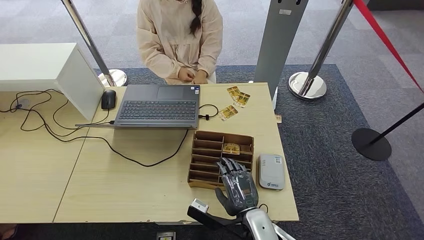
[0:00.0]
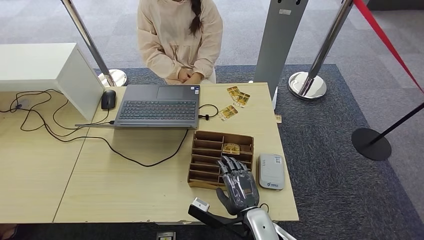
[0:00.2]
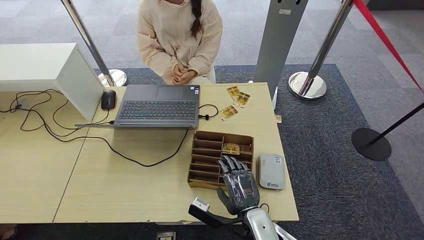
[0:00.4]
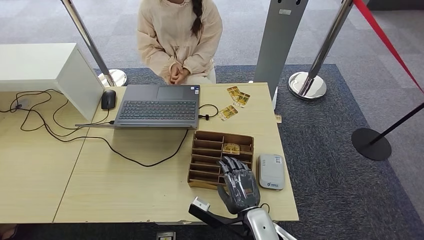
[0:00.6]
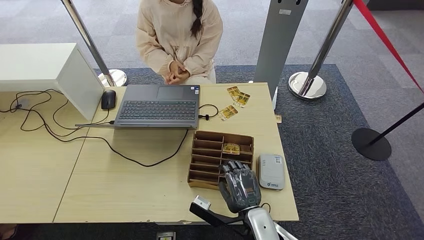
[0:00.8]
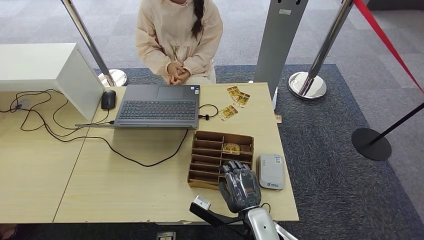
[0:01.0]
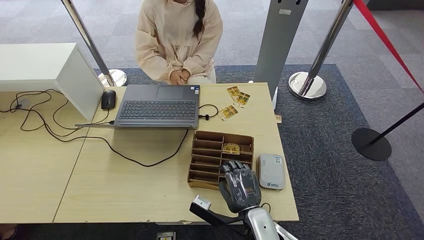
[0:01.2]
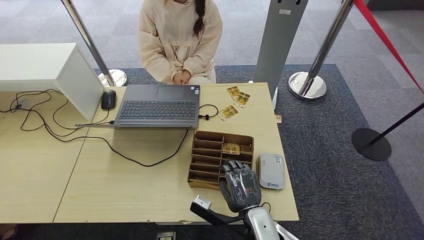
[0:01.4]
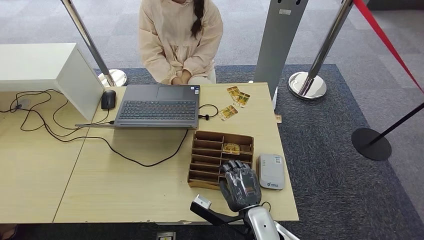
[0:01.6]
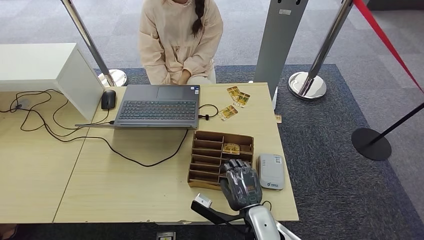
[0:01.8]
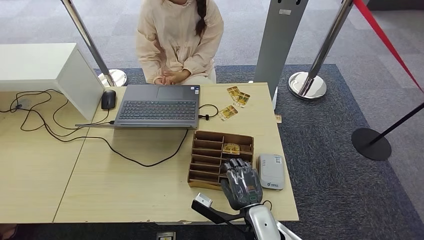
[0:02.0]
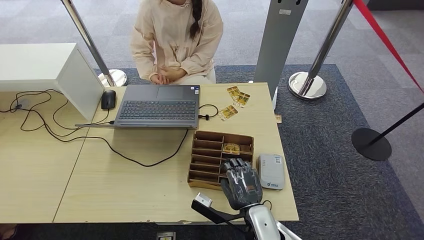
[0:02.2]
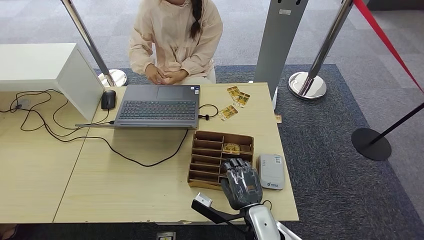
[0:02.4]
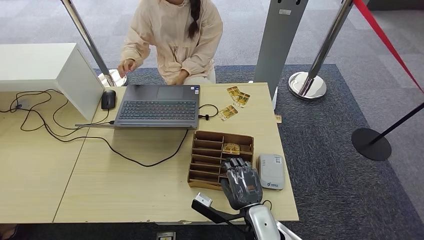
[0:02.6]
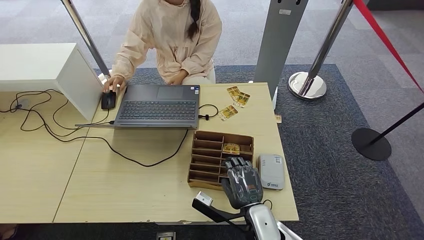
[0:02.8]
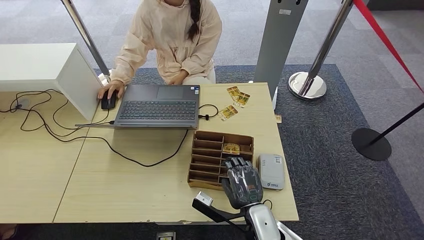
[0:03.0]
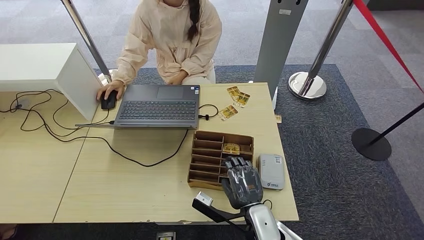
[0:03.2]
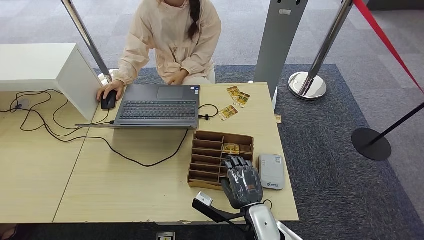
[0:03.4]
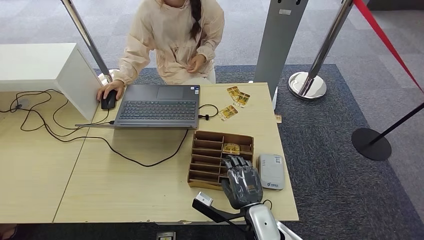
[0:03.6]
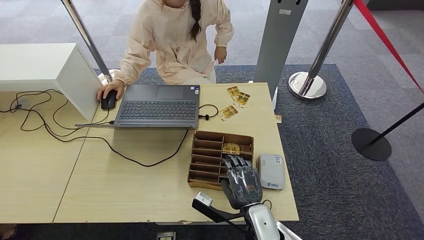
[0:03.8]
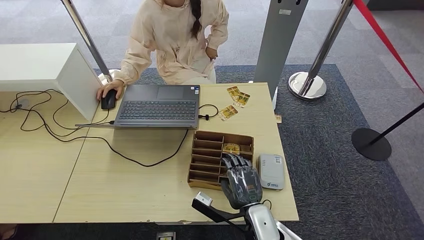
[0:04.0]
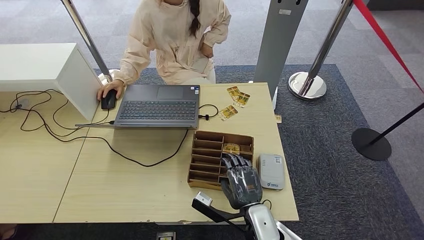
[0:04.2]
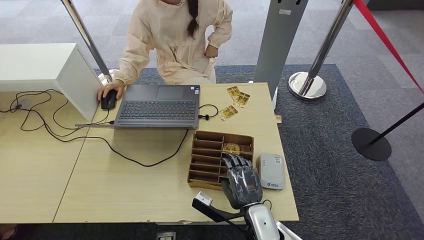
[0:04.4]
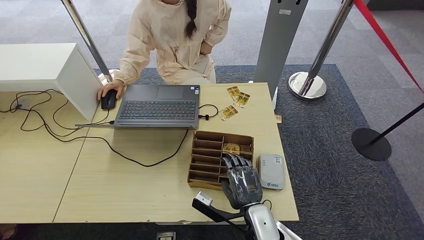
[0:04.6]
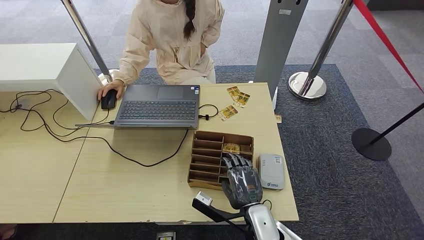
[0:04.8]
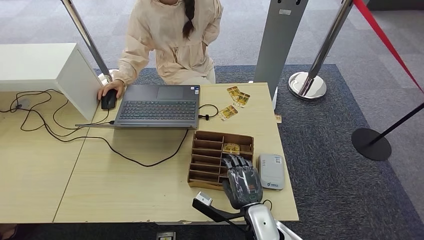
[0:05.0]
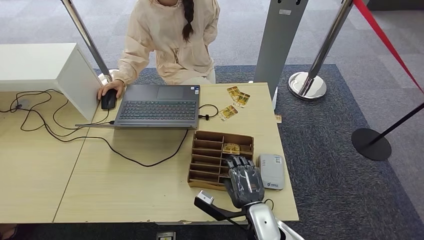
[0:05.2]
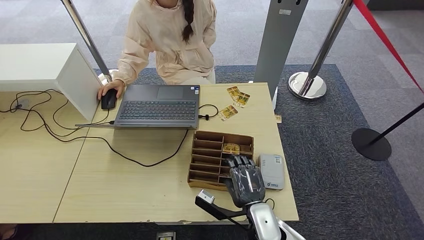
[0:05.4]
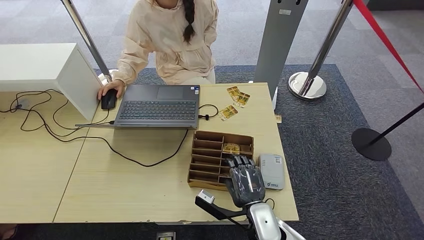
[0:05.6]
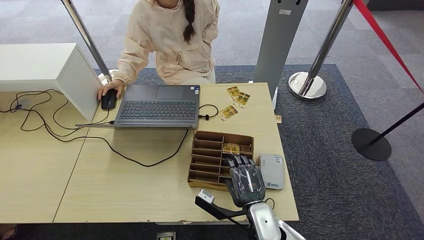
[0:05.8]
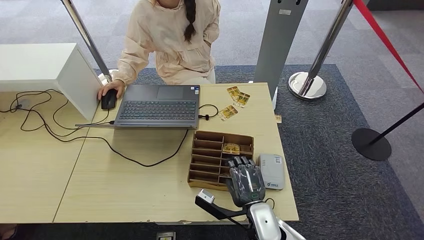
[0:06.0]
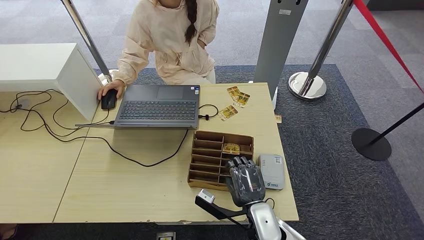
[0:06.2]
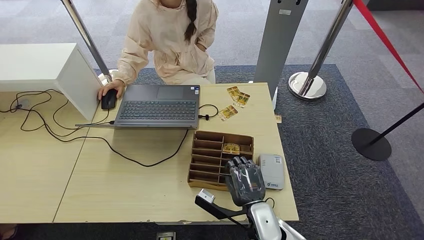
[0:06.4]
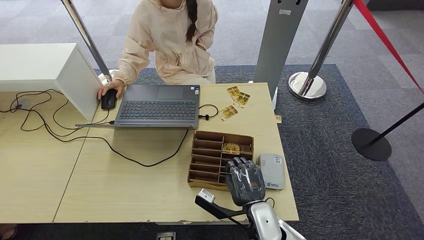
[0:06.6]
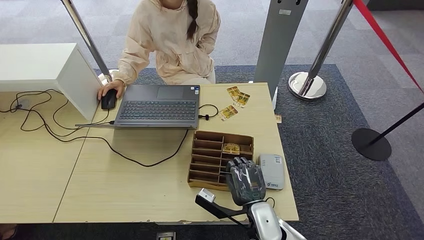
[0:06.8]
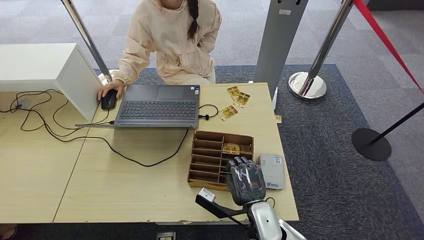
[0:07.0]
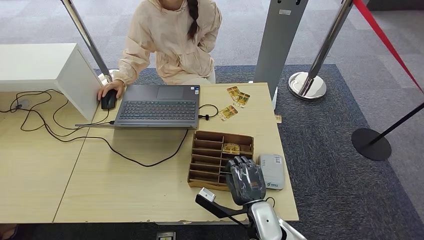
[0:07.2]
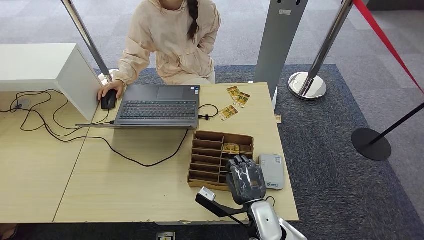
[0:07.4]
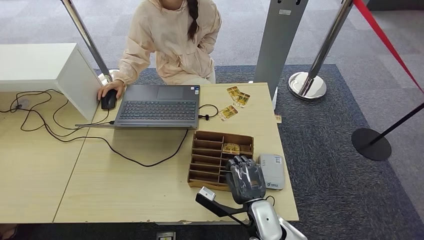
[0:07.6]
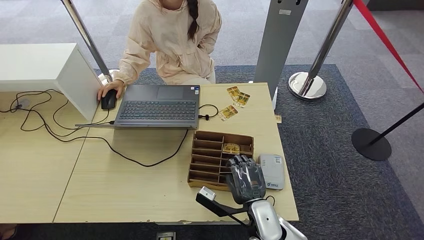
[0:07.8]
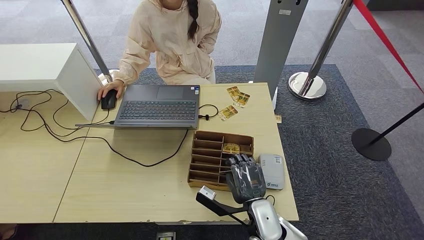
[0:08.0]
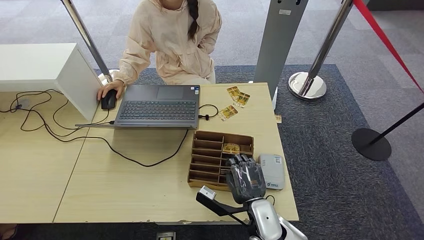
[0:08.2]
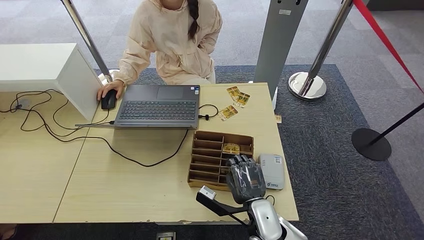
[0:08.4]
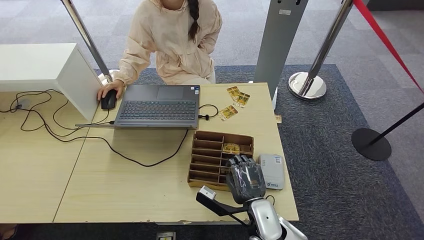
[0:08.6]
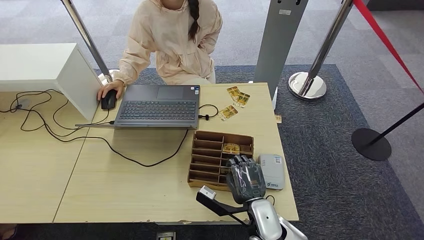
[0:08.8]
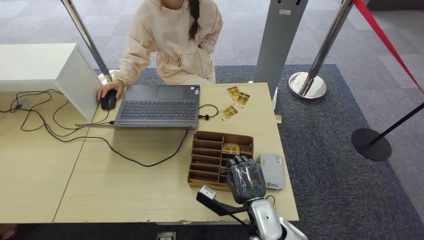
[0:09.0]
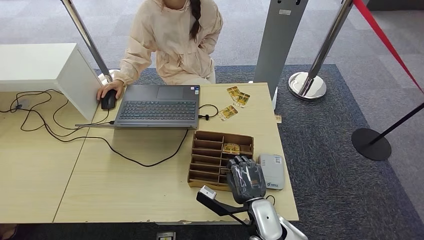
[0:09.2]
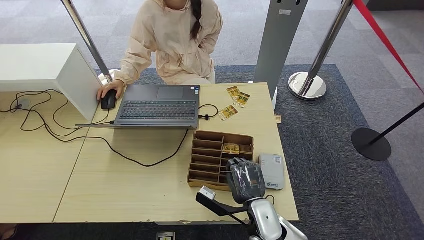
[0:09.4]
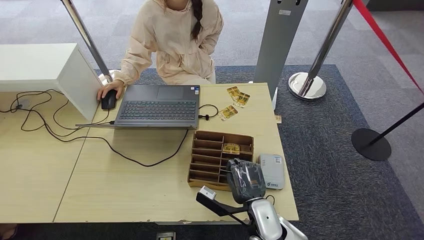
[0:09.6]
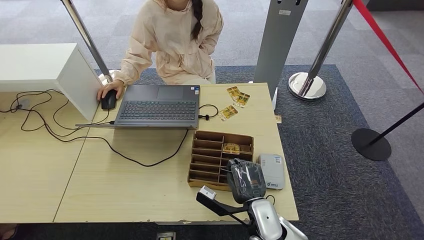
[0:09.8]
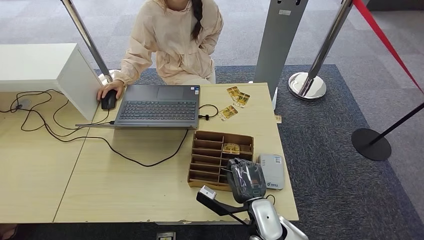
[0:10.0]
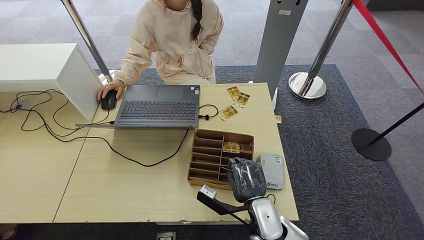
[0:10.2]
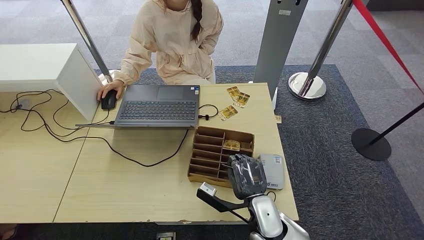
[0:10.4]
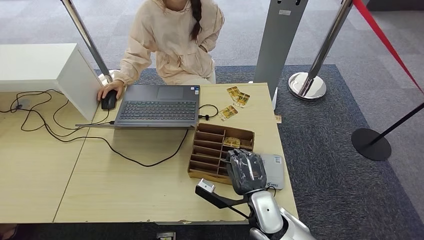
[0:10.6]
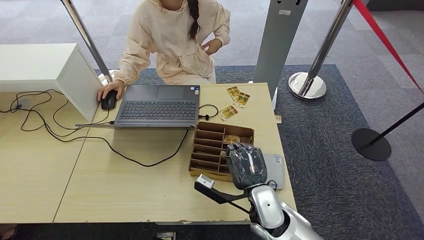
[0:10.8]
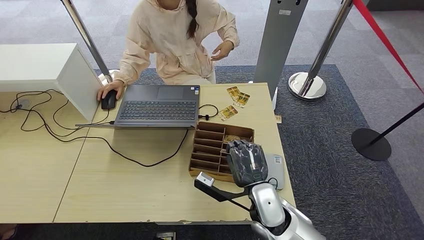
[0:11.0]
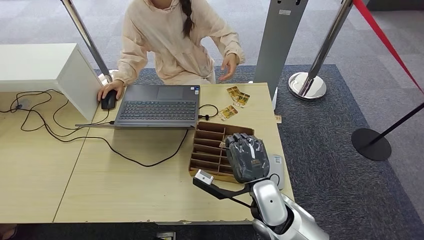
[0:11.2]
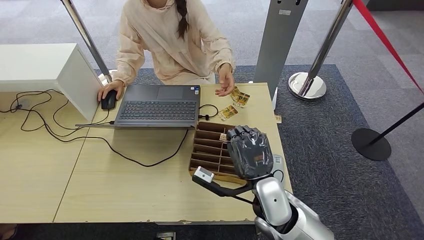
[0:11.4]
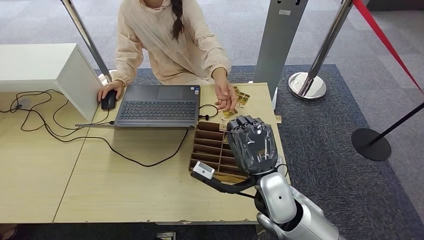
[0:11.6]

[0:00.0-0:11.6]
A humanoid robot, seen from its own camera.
Step, 0:00.0 to 0:11.0: Pick up the room key from the key card box.
0:00.0 to 0:01.4: The two hands keep their place.
0:01.4 to 0:04.4: Both hands stay put.
0:04.4 to 0:07.2: Both hands stay put.
0:07.2 to 0:10.2: Both hands stay about where they are.
0:10.2 to 0:11.6: The right hand goes approximately 10 cm upward.

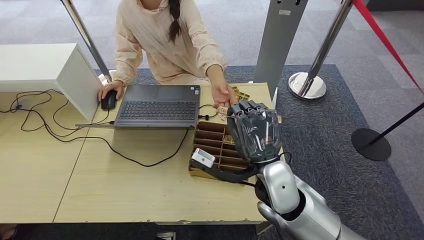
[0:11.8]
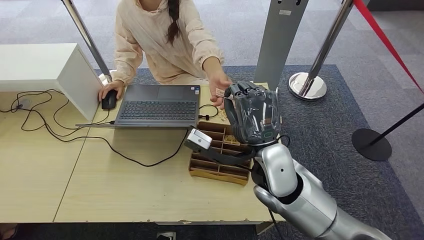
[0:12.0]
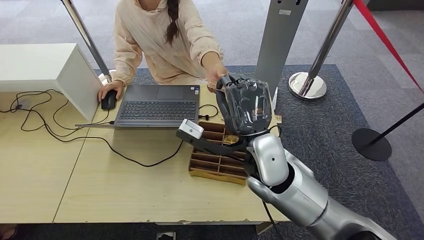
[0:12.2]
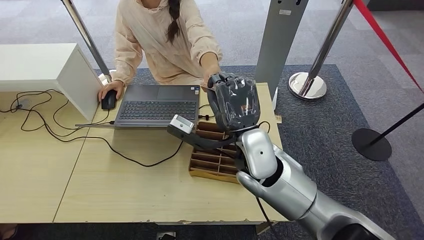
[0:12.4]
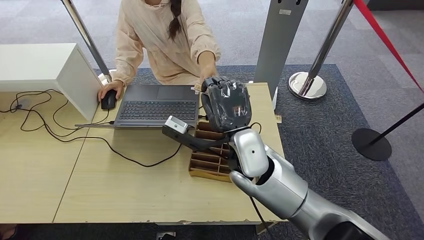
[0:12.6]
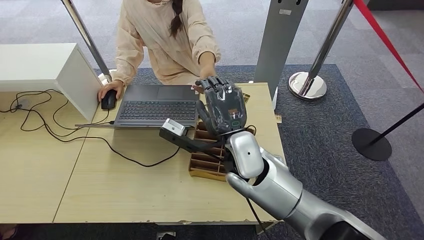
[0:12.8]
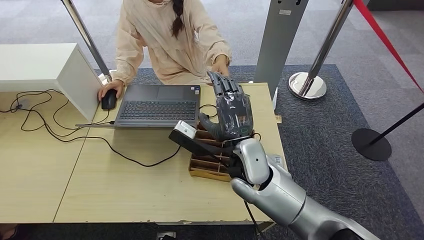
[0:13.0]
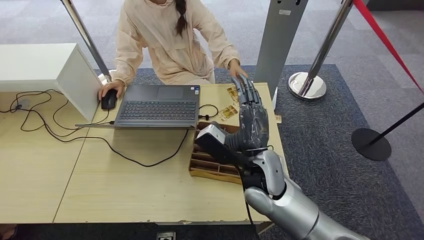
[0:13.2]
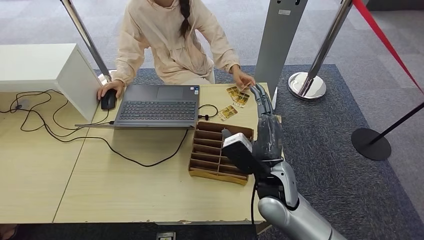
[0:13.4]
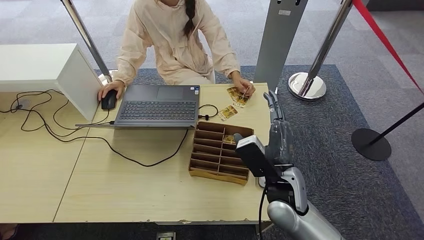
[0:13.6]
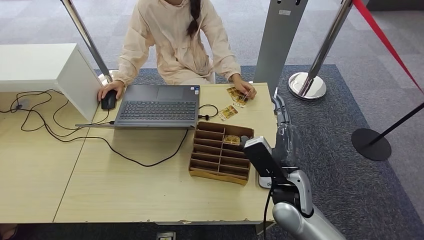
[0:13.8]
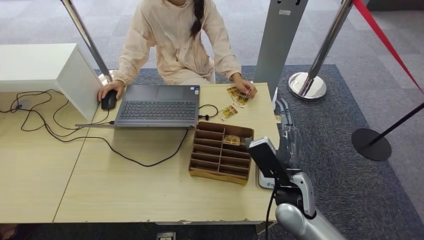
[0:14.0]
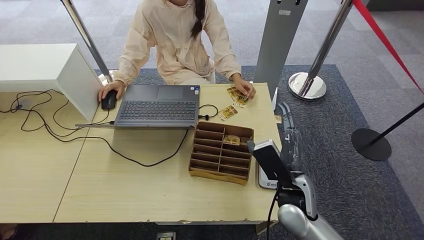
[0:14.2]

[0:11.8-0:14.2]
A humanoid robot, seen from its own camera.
Step, 0:11.8 to 0:14.2: Hand the room key to the person.
0:11.8 to 0:13.0: The right hand heads forward, covering approximately 5 cm.
0:13.0 to 0:14.2: The right hand moves to the right, downward and backward, some 15 cm.

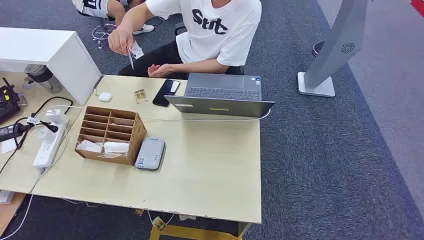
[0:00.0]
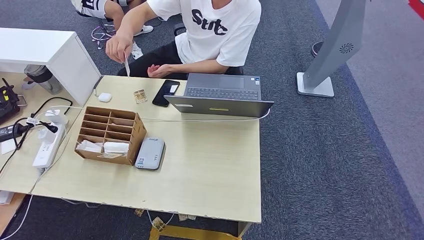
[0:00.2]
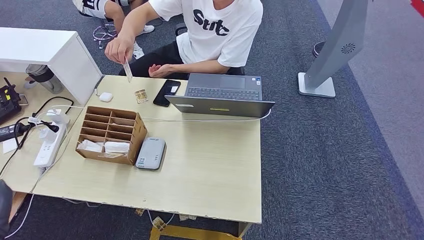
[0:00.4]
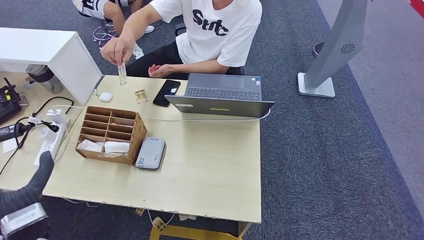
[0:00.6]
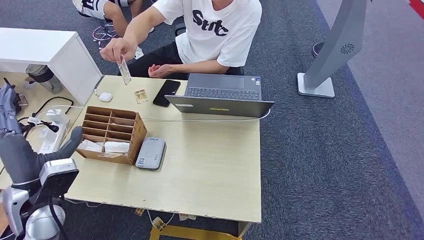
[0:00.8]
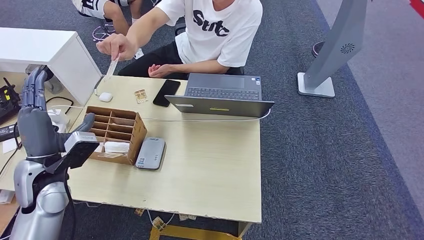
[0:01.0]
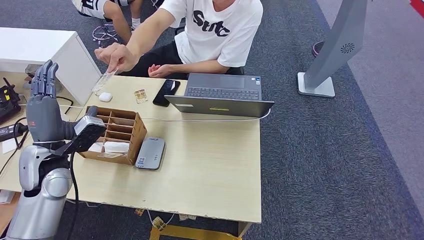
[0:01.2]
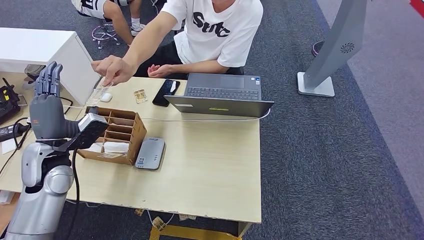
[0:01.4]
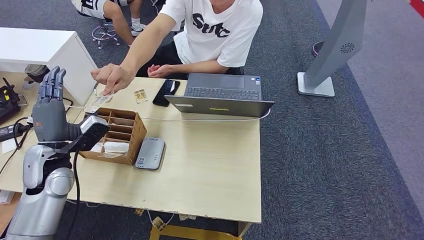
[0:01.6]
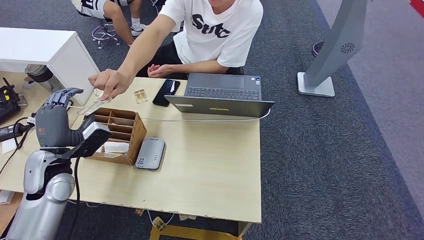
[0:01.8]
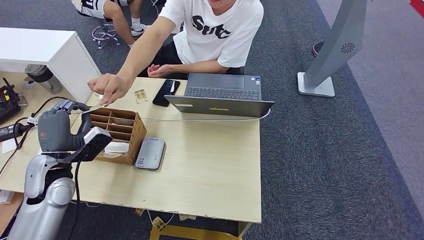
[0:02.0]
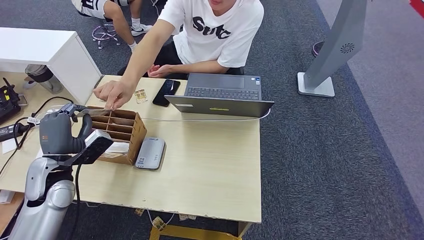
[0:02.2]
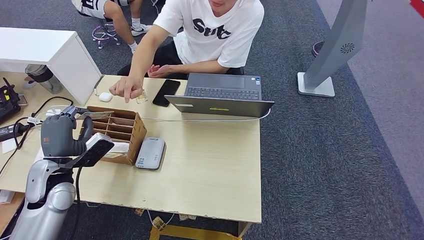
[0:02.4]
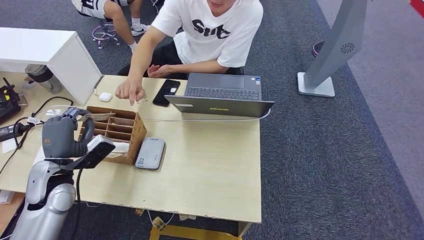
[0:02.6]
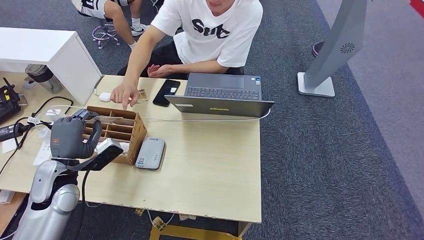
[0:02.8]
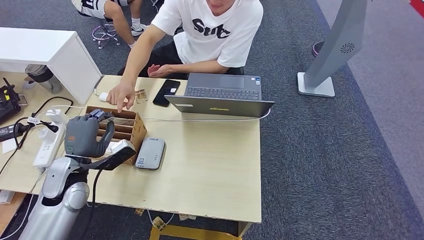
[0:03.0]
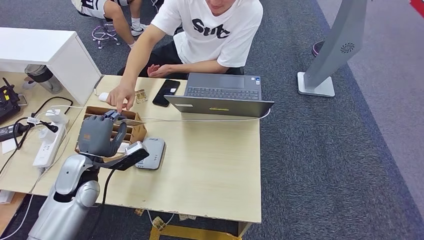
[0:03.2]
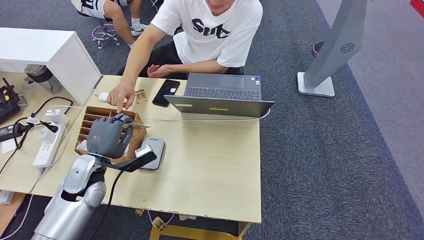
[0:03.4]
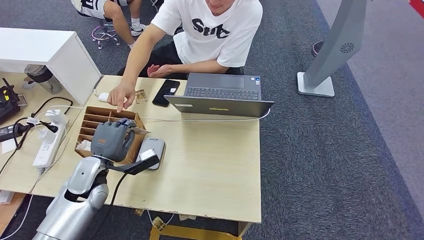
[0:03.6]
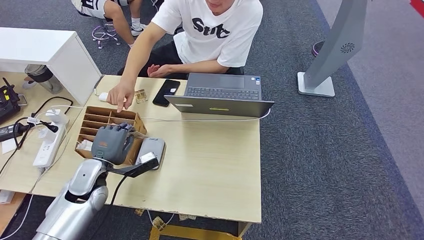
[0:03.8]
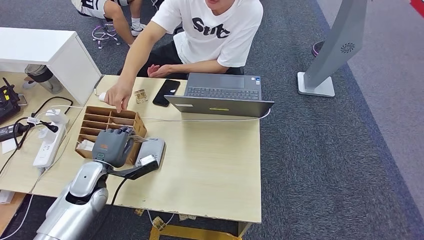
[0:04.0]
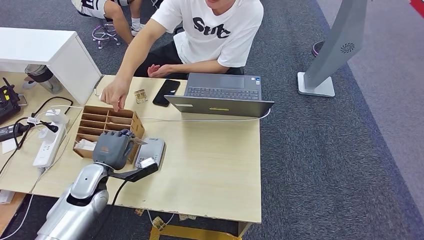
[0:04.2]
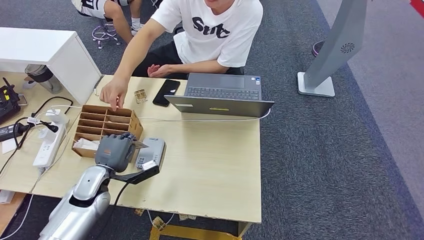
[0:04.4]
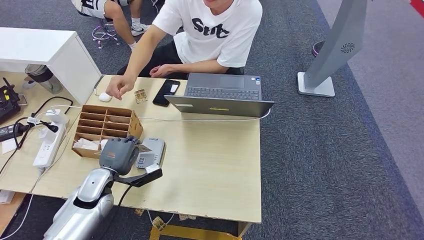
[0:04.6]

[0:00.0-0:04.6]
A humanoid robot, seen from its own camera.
Step, 0:00.0 to 0:02.2: Take the ID card from the person's hand.
0:01.6 to 0:03.0: The hands make only small movements.
0:03.0 to 0:04.6: The left hand goes some 10 cm downward.
